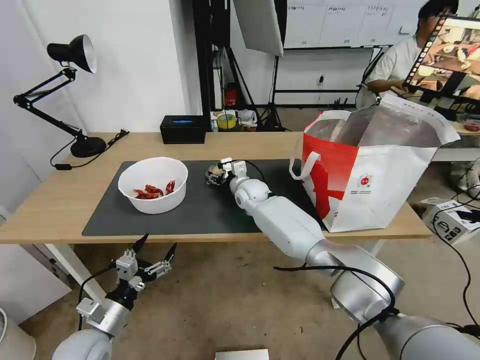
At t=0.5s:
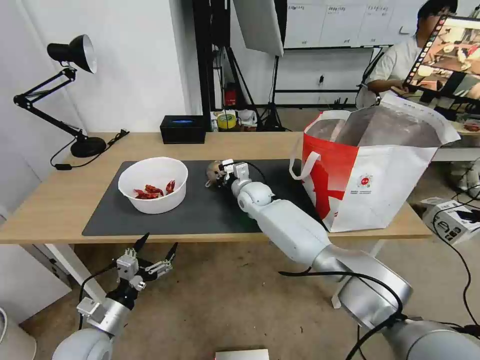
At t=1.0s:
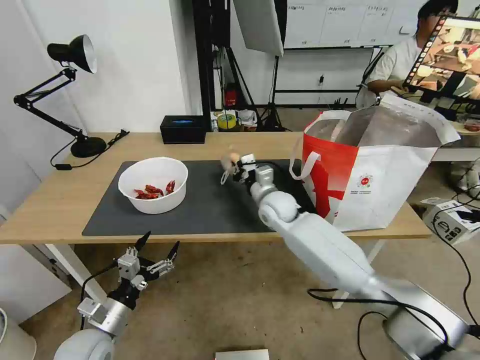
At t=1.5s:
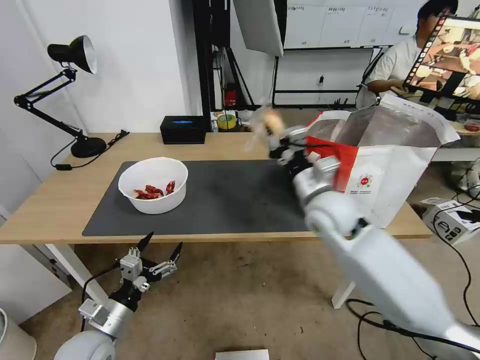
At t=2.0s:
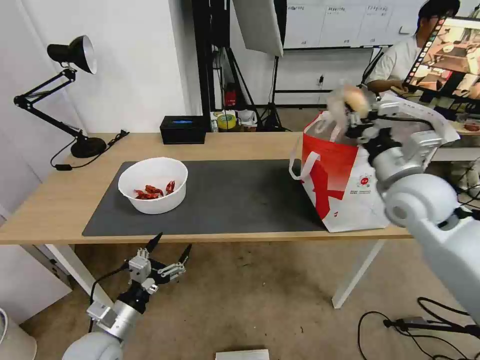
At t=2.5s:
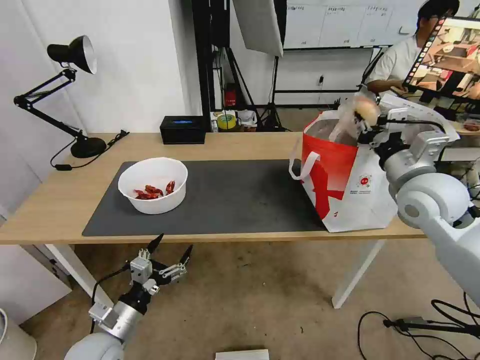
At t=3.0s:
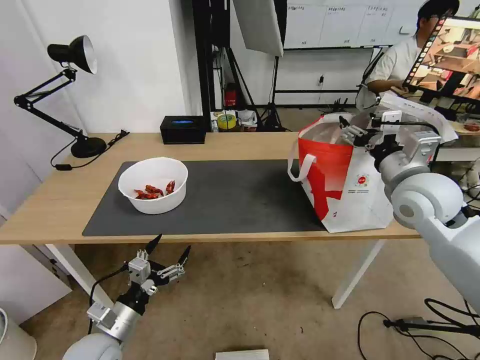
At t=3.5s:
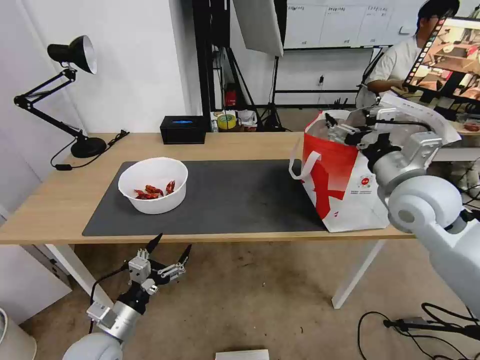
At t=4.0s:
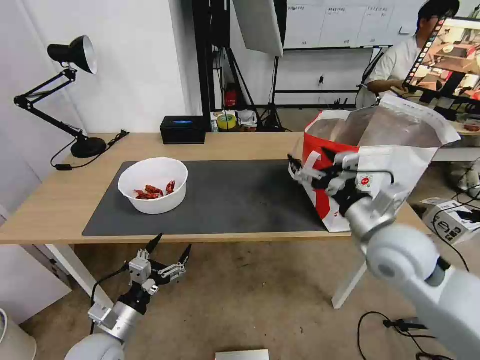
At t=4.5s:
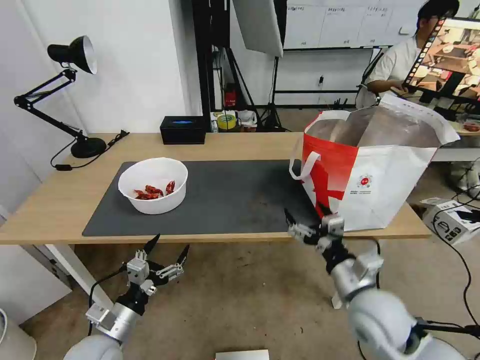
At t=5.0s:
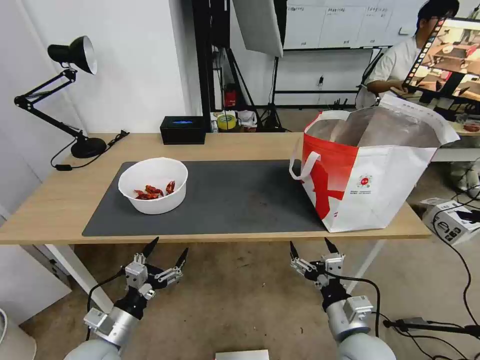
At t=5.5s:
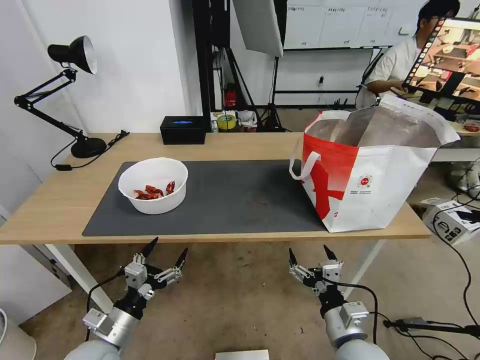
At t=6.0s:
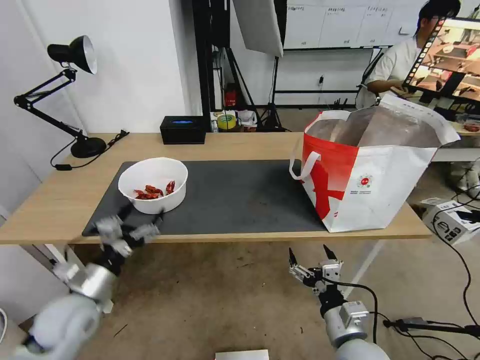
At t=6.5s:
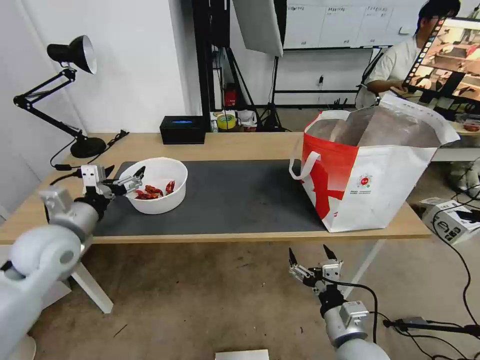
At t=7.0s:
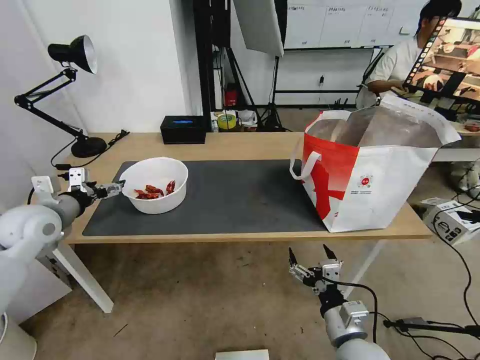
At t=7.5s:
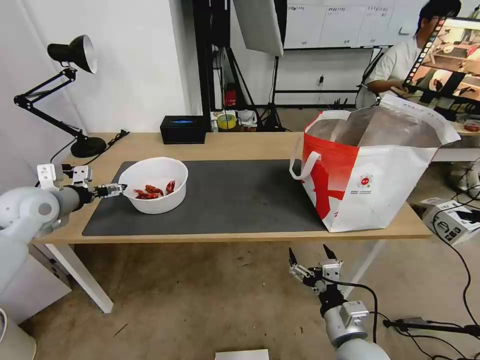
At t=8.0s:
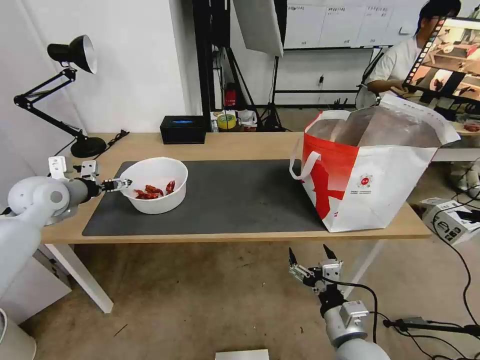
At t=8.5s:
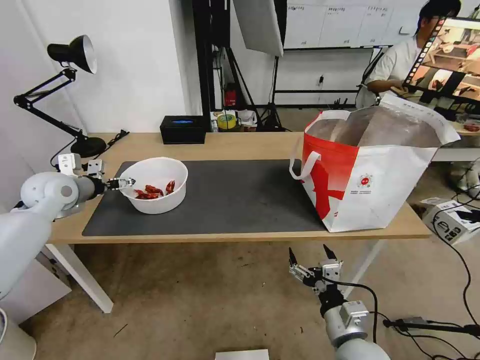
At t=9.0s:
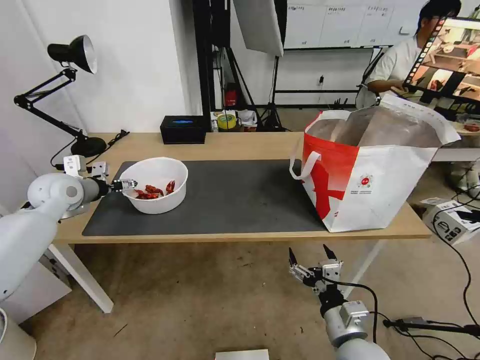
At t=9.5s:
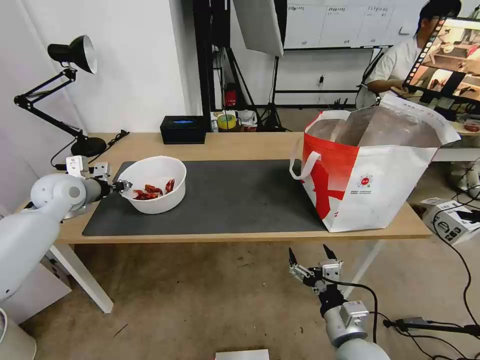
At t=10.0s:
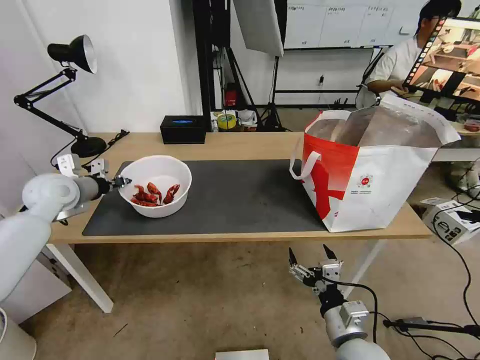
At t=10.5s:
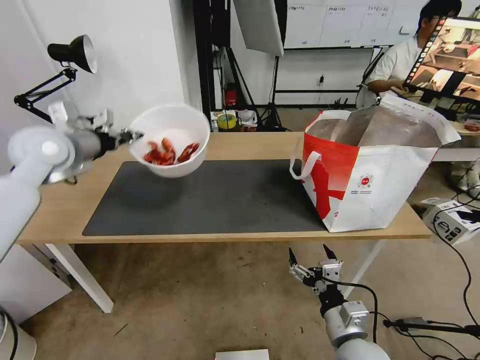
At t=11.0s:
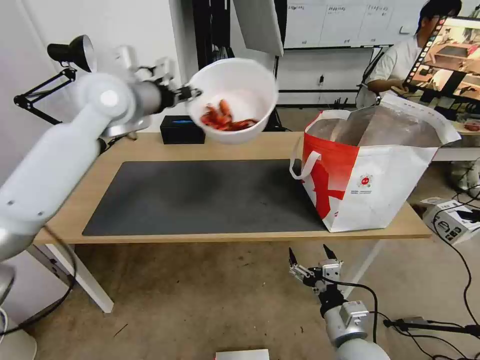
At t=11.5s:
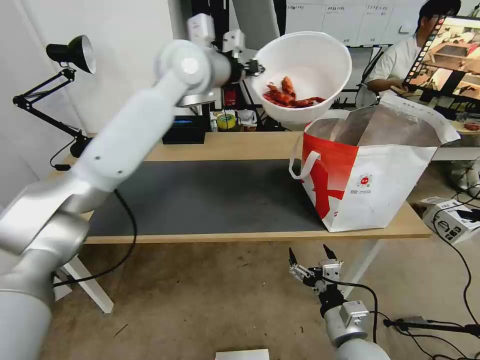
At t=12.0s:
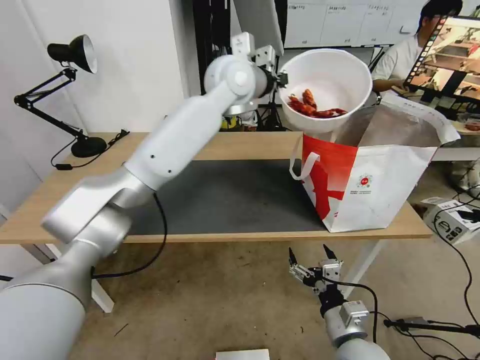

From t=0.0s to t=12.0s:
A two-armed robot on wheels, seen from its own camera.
Task of the whole recording: Pick up the trash from the table and place it into the takeout bag.
From t=0.0s to t=2.0s: The right gripper heads to the right, backward and upward, covering approximately 40 cm, and closes up.
From t=2.0s to t=4.0s: The right gripper is displaced backward and downward by some 10 cm, and opens.
From t=4.0s to t=6.0s: The right gripper travels downward and backward by approximately 20 cm. Meanwhile the left gripper moves upward and forward, roughly 10 cm.
From t=6.0s to t=8.0s: The left gripper travels forward, upward and to the left by about 25 cm.
From t=8.0s to t=10.0s: The left gripper closes its fingers.
From t=10.0s to t=12.0s: The left gripper is displaced to the right and upward by roughly 40 cm.

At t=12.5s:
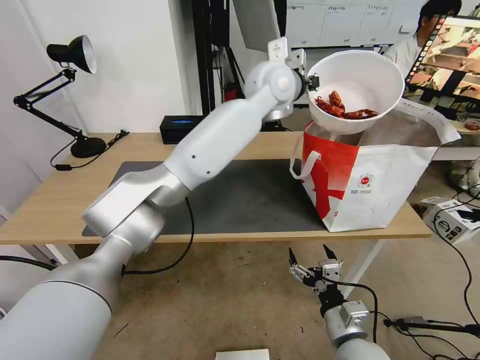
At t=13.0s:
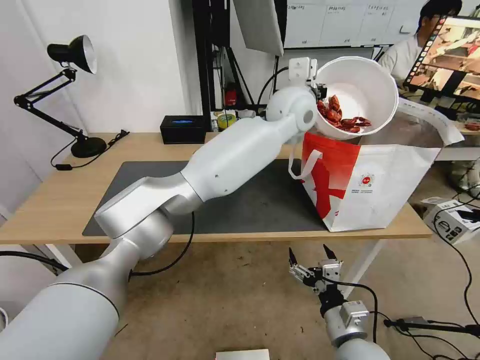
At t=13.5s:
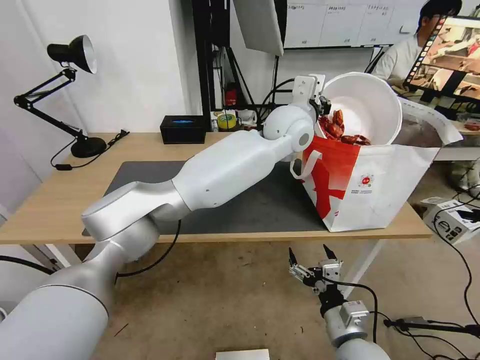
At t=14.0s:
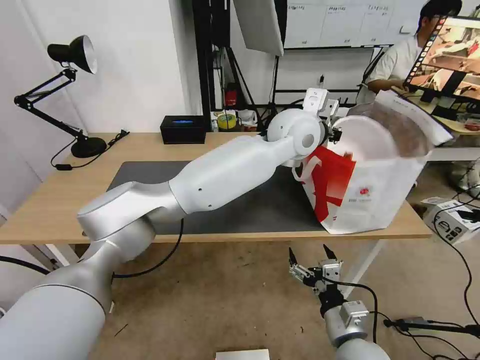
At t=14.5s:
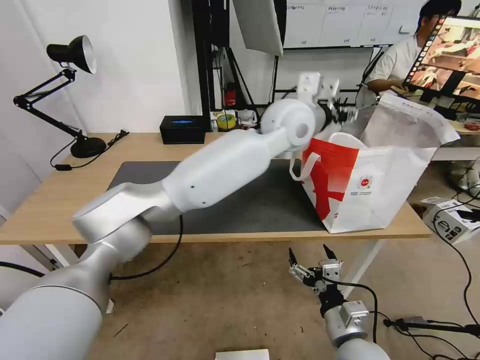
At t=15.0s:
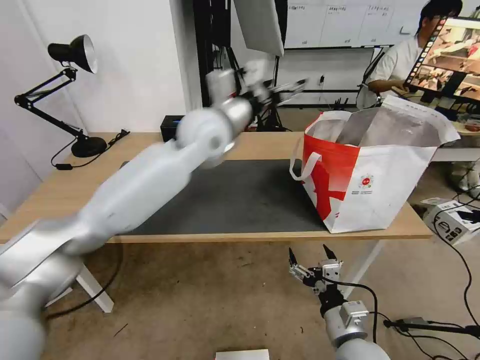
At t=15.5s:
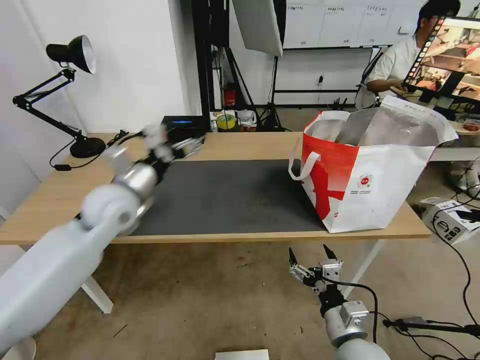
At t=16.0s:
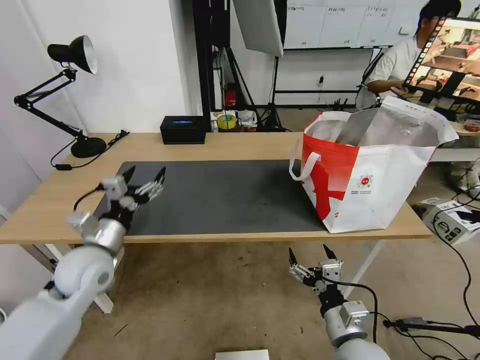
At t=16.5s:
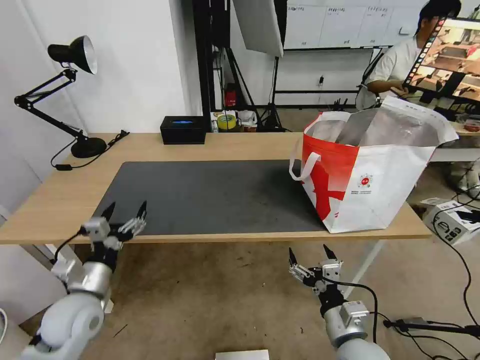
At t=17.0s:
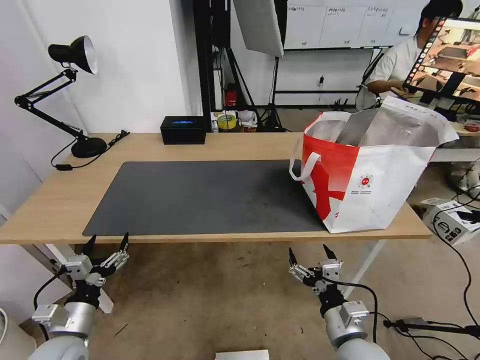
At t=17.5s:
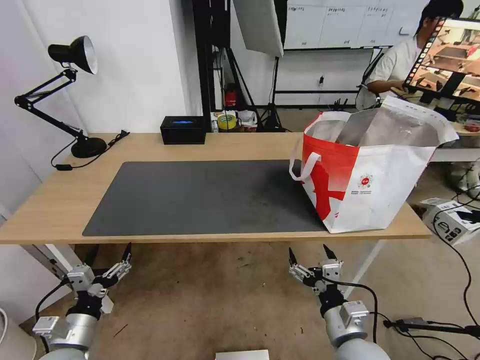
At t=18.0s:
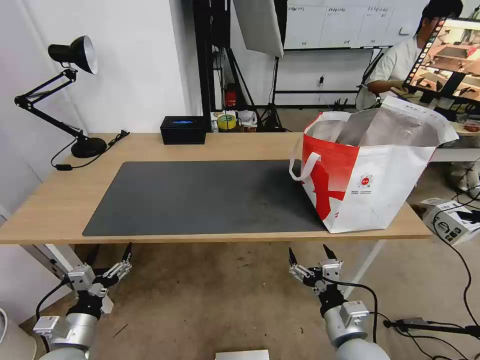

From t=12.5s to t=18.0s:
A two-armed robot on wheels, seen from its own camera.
Task of the whole recording: Pick up the trash from the table and place it into the takeout bag.
From t=12.5s to t=14.5s: The left gripper moves backward, roughly 5 cm, and opens its fingers.
From t=14.5s to t=16.0s: The left gripper travels to the left, downward and backward by roughly 50 cm.
From t=16.0s to t=18.0s: The left gripper shifts approximately 20 cm backward and downward.

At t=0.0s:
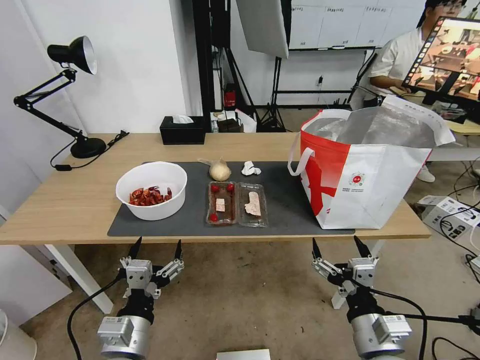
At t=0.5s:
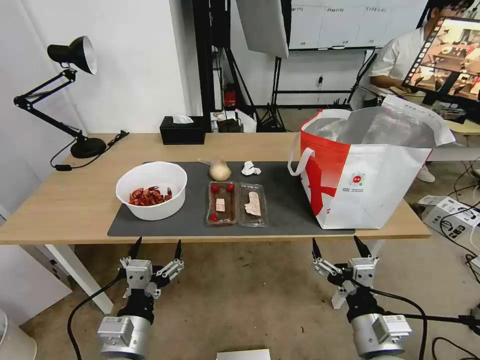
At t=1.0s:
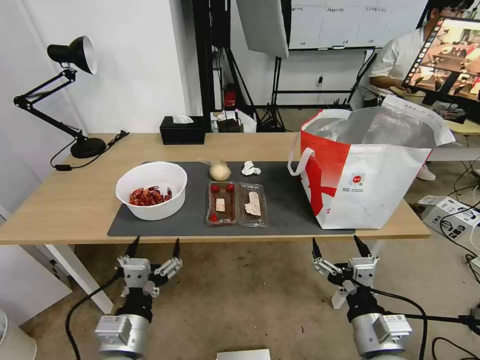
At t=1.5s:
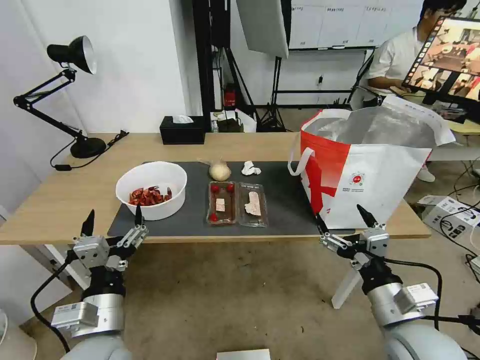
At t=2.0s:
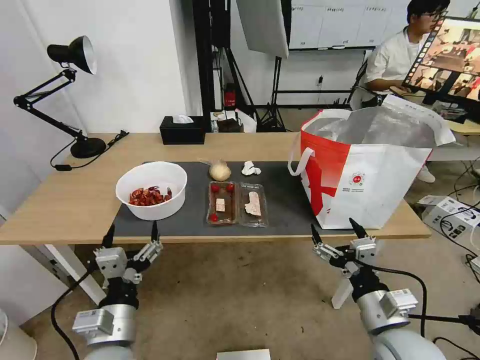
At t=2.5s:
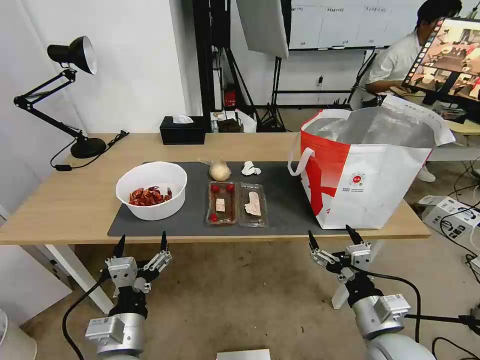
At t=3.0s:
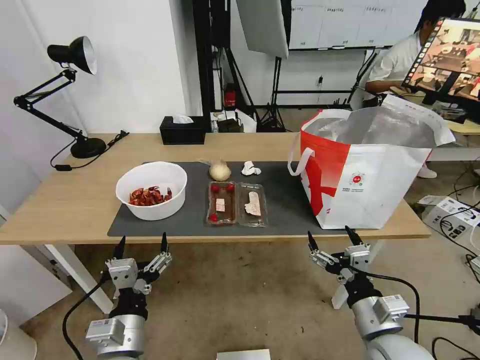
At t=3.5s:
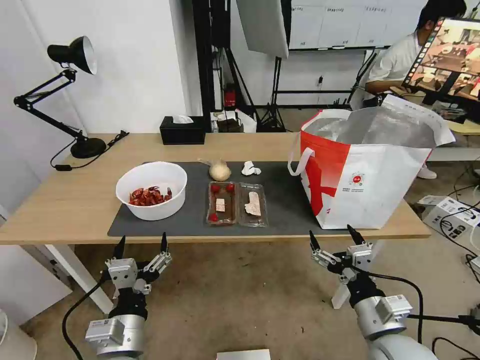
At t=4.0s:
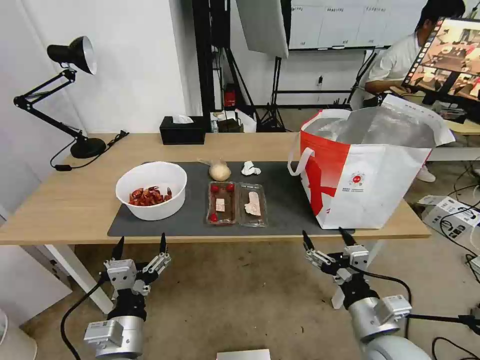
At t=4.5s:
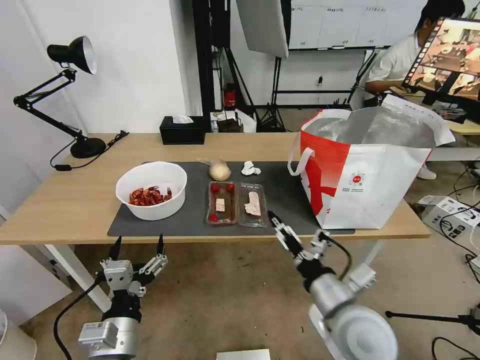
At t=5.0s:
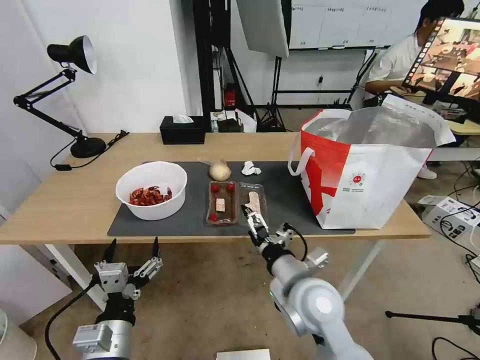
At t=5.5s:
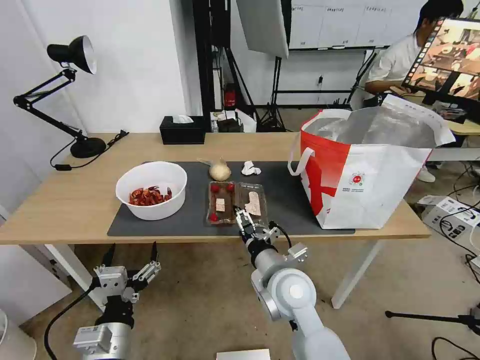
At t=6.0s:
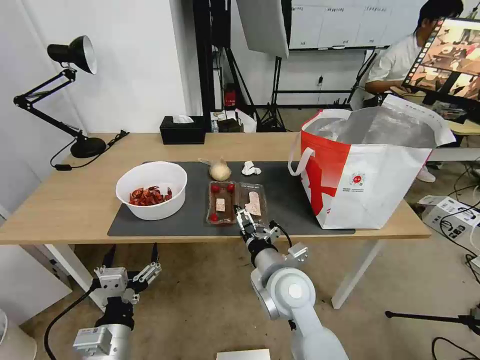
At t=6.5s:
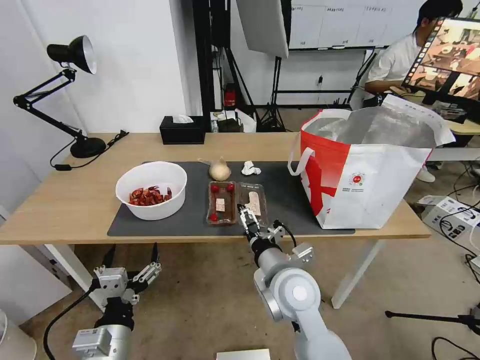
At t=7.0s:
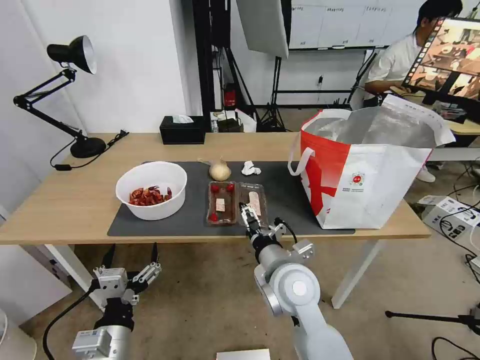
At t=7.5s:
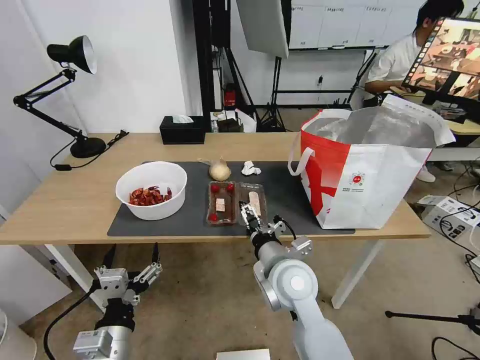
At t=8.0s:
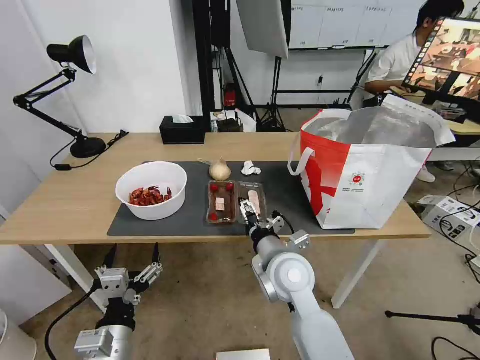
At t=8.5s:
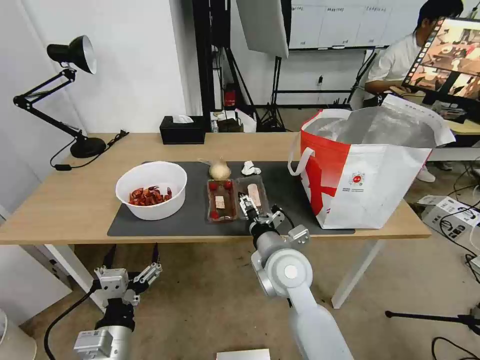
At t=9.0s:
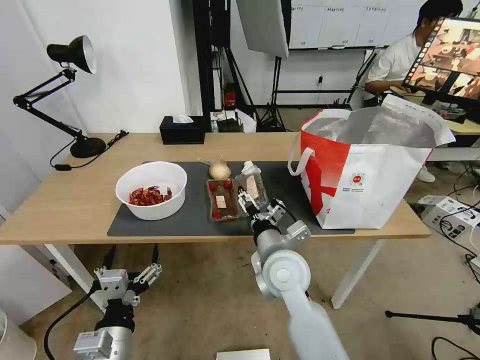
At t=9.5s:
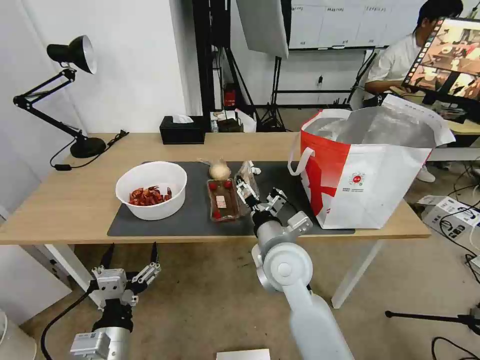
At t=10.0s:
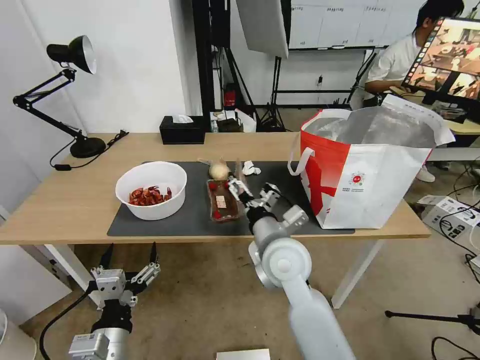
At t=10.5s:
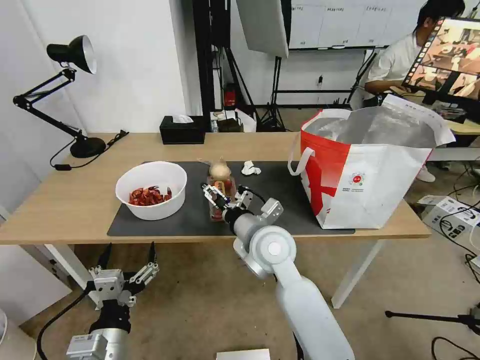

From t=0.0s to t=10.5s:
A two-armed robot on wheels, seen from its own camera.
Task of the whole recording: Pick up the trash from the table and place it into the takeout bag.
From t=2.0s to t=4.0s: The grippers make only small movements.
From t=4.0s to t=6.5s: The right gripper travels to the left and forward by some 20 cm.
From t=6.5s to t=8.5s: The grippers move only a little.
From t=8.5s to t=10.5s: The right gripper changes place by roughly 5 cm.
